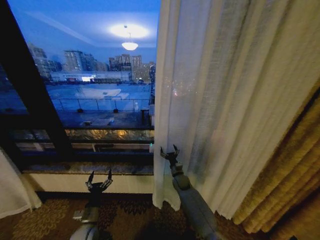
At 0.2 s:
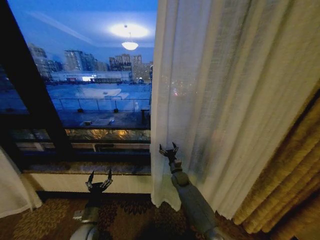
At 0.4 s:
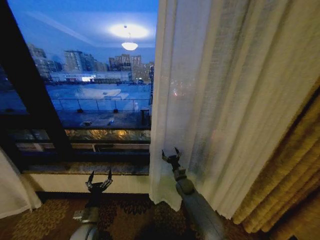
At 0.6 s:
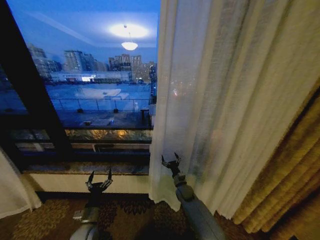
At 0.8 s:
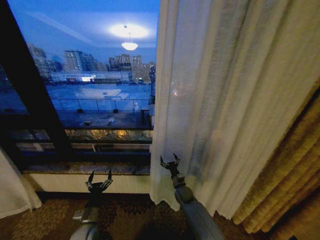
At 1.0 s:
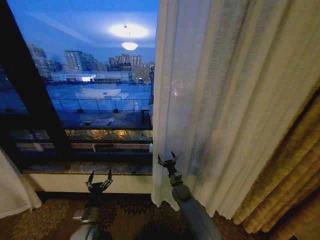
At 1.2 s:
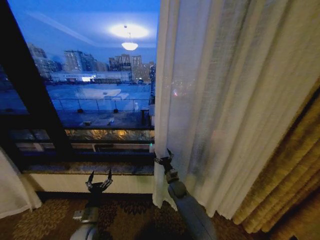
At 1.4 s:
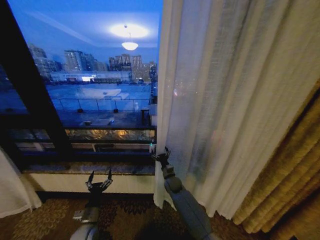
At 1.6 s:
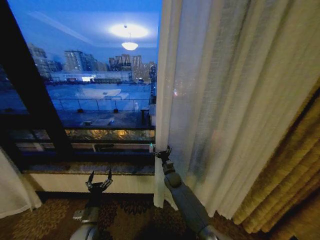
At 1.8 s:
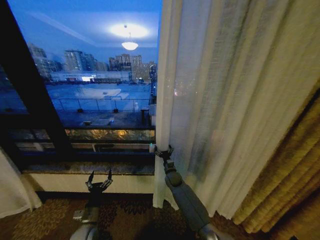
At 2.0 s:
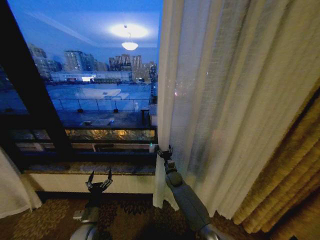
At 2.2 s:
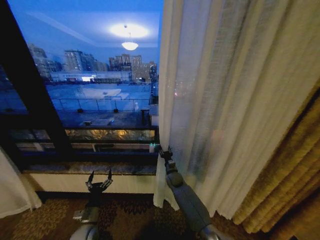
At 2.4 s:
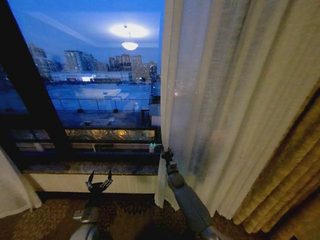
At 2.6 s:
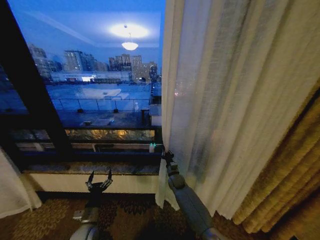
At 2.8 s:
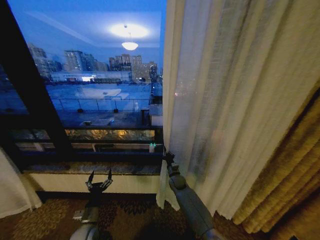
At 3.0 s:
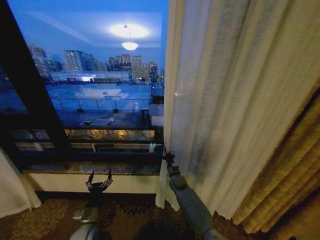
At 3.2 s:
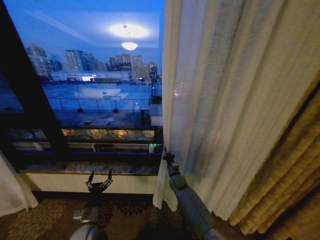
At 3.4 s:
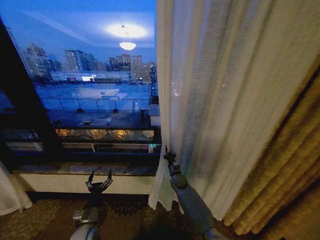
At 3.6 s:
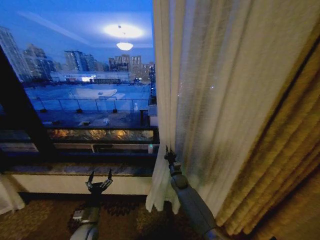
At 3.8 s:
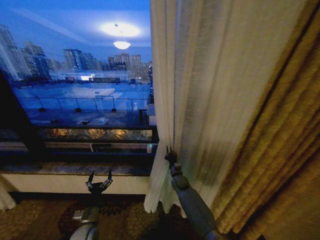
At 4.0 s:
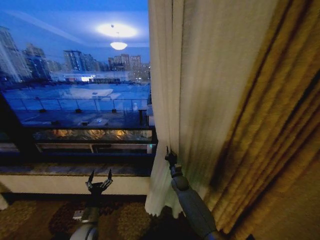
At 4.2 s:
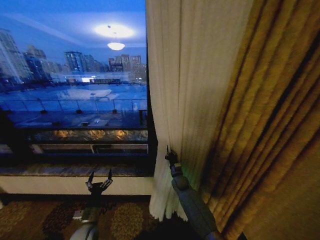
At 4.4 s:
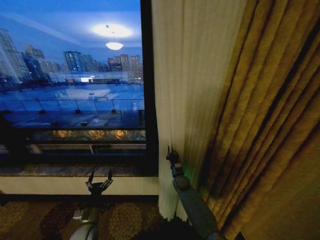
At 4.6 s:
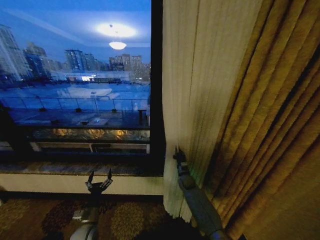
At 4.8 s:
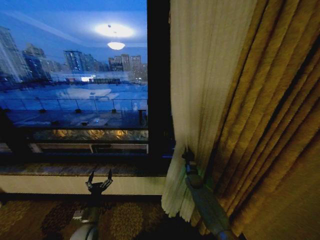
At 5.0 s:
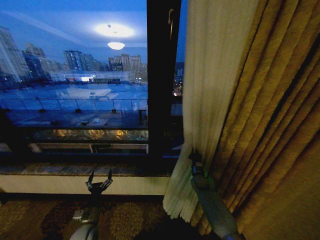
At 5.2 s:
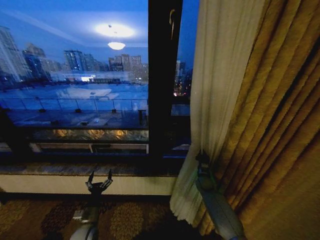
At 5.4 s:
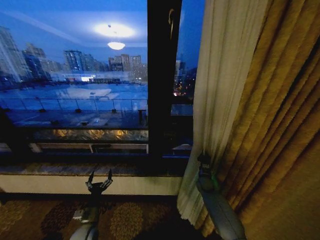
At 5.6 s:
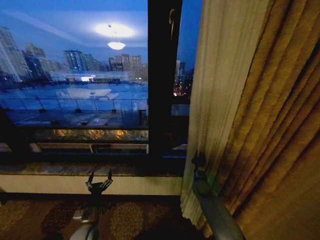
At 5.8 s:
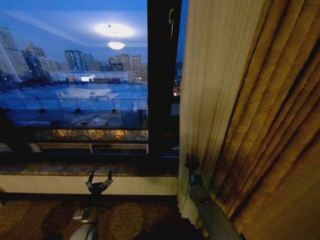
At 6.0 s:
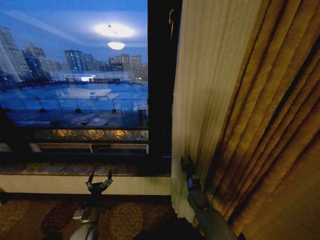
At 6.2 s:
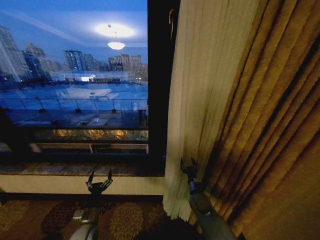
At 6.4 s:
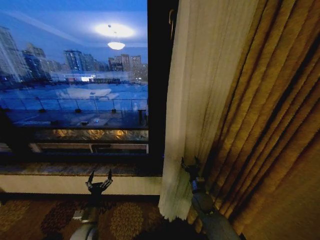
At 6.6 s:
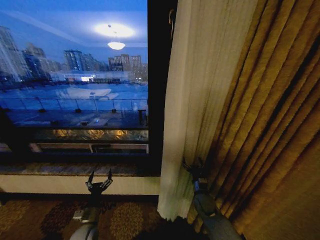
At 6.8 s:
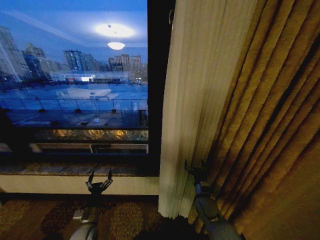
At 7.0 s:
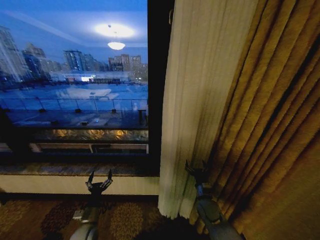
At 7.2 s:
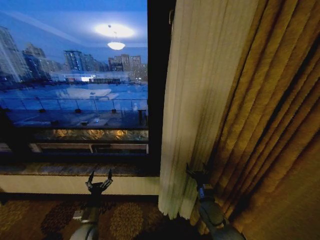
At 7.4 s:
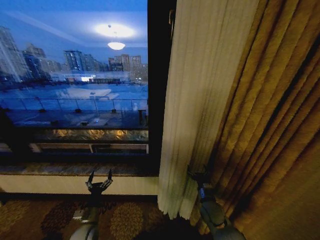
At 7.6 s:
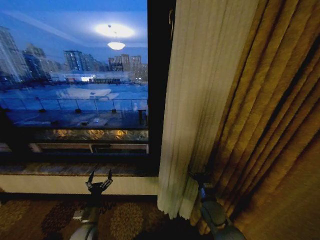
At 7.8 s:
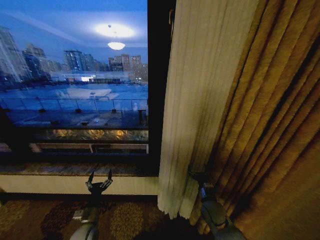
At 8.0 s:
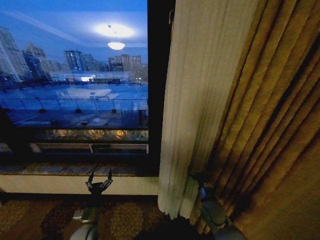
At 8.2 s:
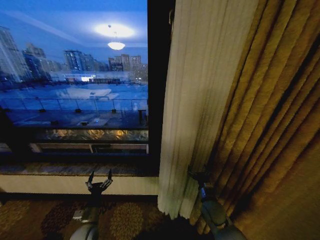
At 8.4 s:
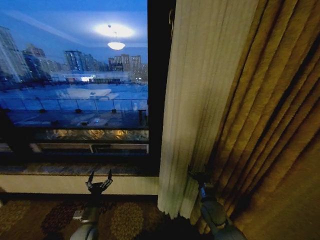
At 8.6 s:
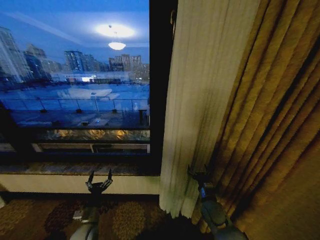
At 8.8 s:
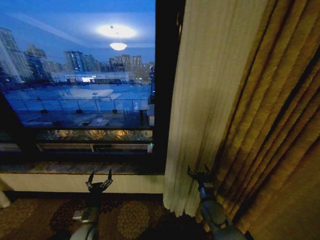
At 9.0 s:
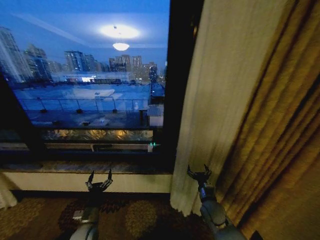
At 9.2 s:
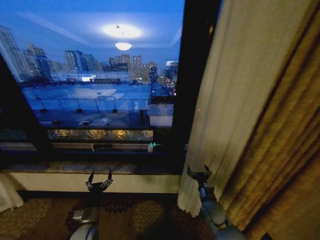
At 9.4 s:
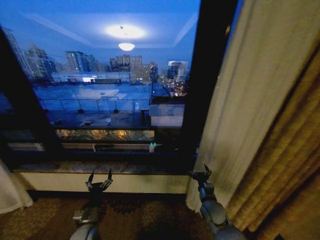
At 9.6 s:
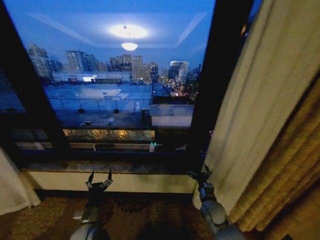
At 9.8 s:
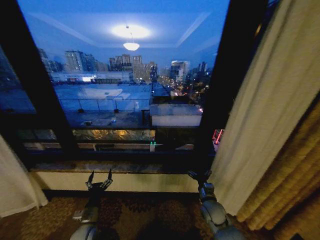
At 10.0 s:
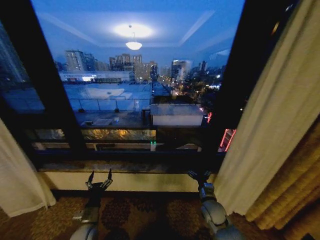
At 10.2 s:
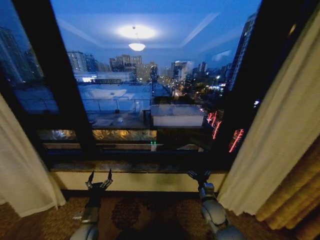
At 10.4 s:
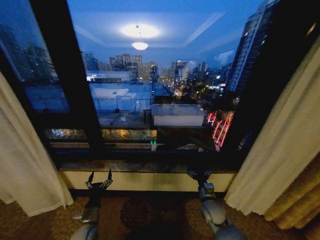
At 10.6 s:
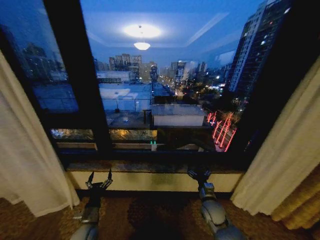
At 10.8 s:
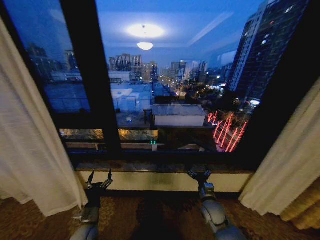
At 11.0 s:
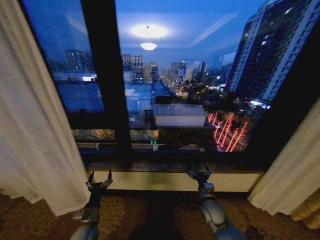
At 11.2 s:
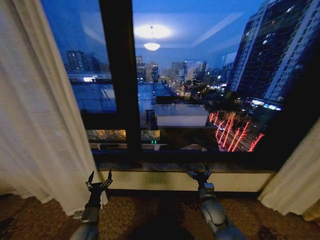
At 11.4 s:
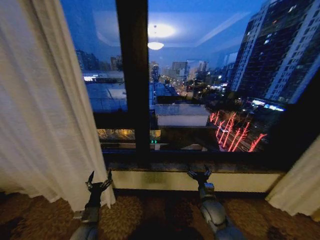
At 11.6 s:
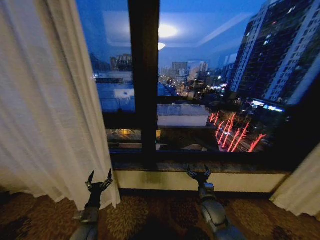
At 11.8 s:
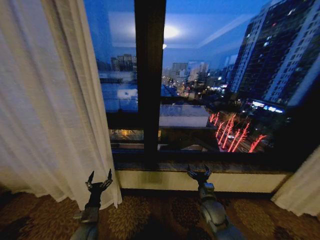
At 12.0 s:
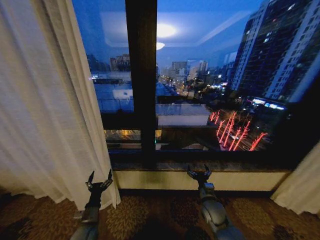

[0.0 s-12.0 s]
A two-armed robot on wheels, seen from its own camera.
Task of the whole recording: Open the curtains by pulling them apart, changing their state from closed to fully open.
0.0 to 1.6 s: The right gripper changes place by some 5 cm.
1.6 to 3.0 s: The right gripper closes.
4.4 to 6.0 s: The right gripper travels backward and to the right by some 10 cm, and opens.
6.0 to 7.6 s: The right gripper heads backward, covering about 5 cm, and opens up.

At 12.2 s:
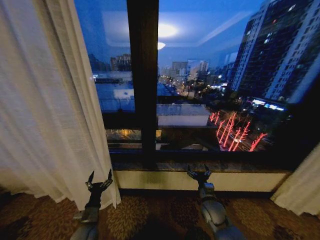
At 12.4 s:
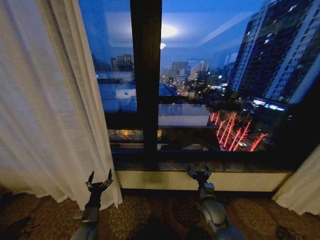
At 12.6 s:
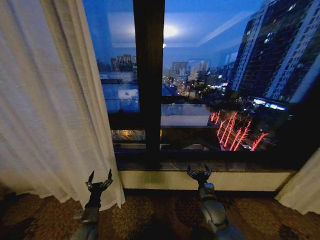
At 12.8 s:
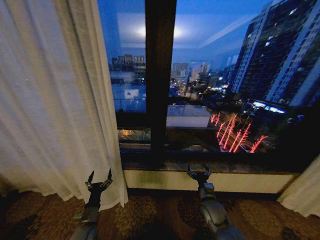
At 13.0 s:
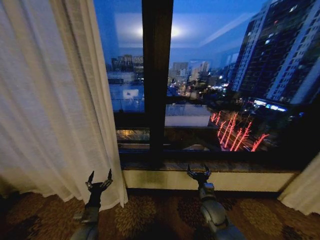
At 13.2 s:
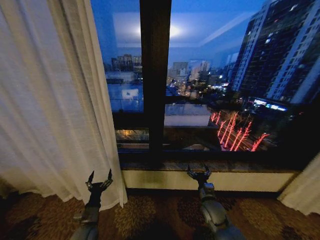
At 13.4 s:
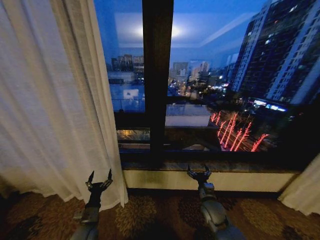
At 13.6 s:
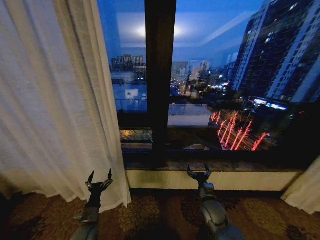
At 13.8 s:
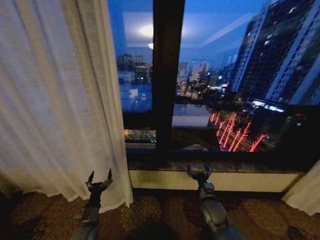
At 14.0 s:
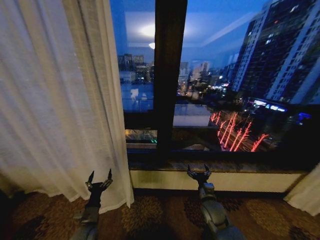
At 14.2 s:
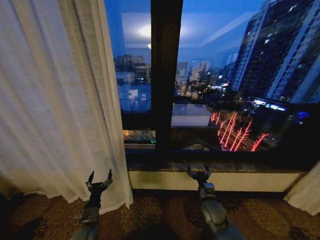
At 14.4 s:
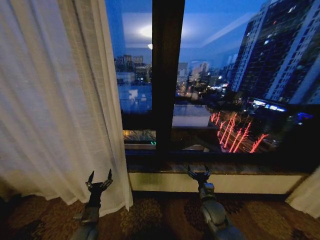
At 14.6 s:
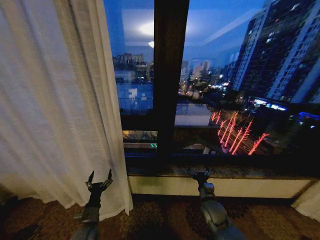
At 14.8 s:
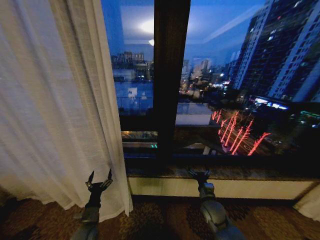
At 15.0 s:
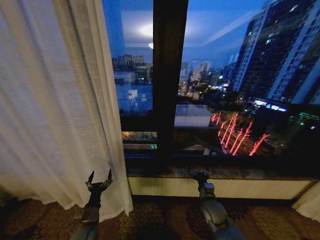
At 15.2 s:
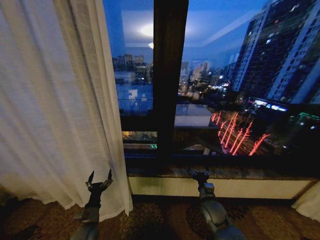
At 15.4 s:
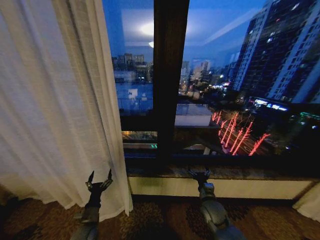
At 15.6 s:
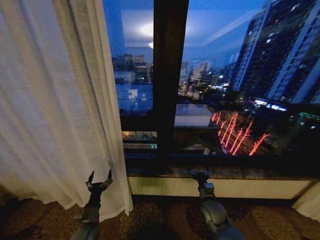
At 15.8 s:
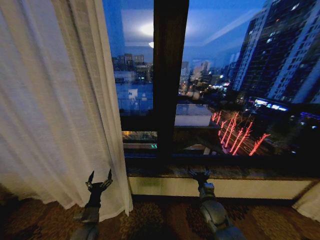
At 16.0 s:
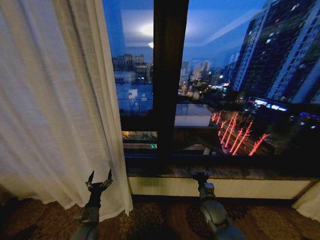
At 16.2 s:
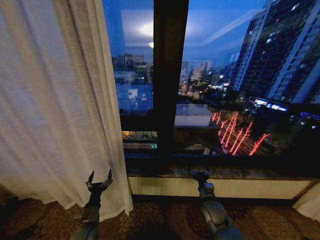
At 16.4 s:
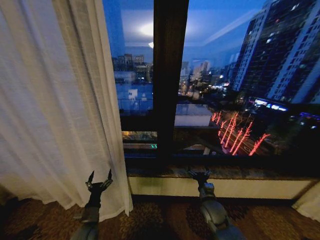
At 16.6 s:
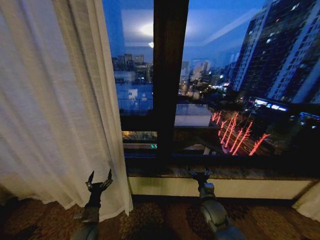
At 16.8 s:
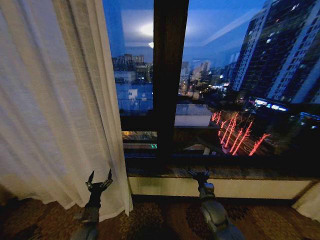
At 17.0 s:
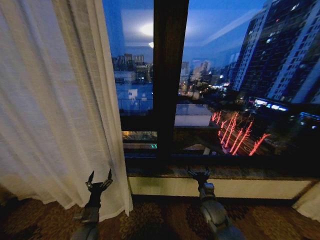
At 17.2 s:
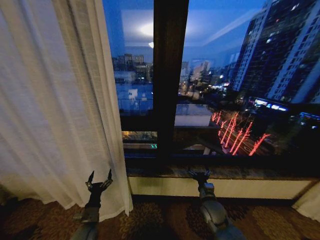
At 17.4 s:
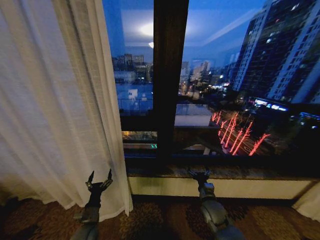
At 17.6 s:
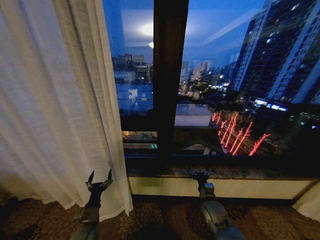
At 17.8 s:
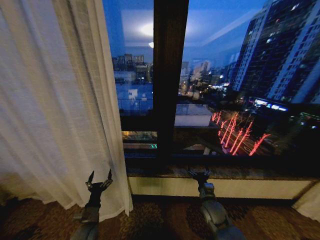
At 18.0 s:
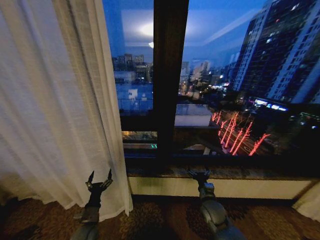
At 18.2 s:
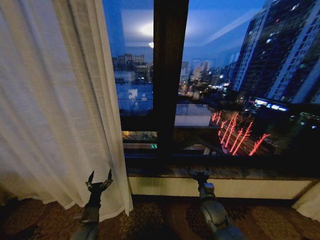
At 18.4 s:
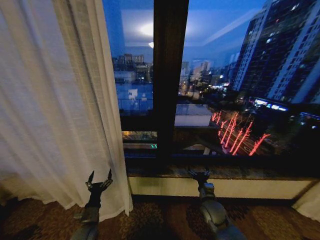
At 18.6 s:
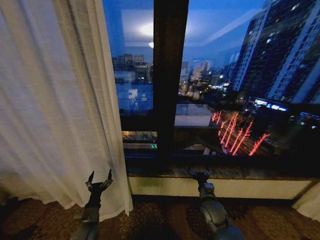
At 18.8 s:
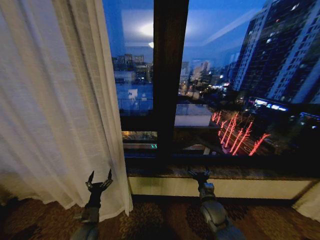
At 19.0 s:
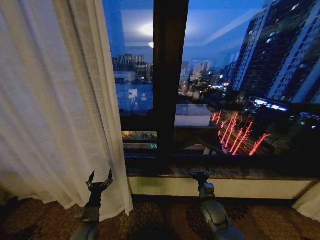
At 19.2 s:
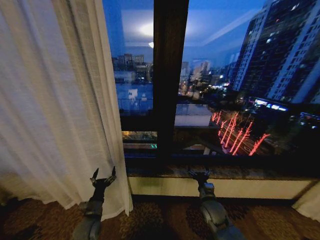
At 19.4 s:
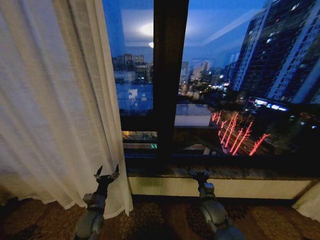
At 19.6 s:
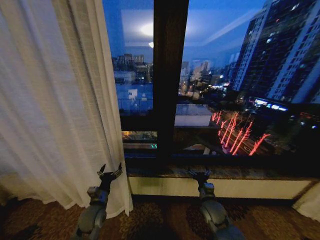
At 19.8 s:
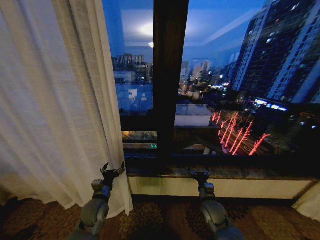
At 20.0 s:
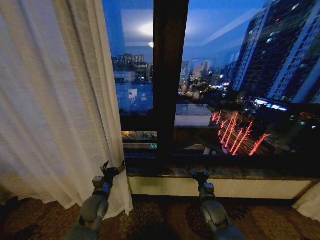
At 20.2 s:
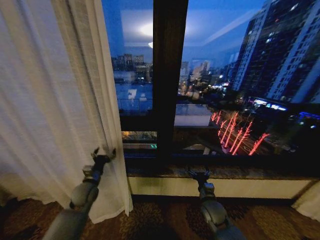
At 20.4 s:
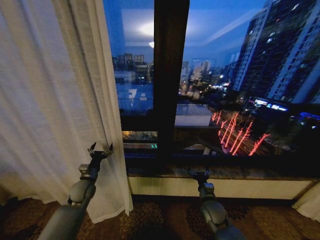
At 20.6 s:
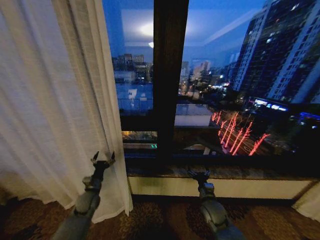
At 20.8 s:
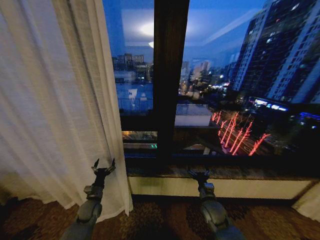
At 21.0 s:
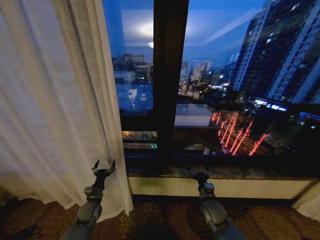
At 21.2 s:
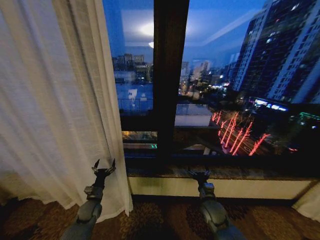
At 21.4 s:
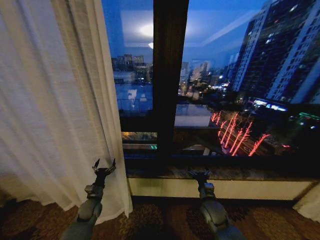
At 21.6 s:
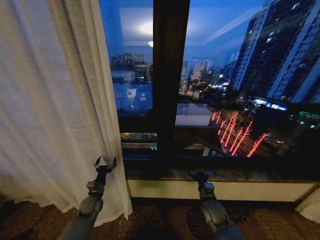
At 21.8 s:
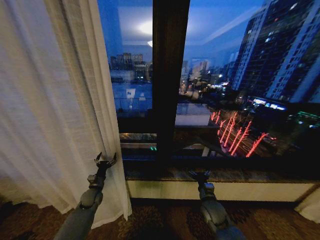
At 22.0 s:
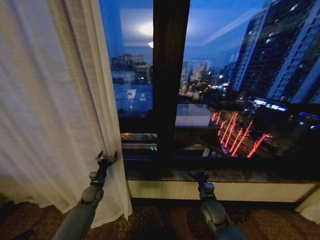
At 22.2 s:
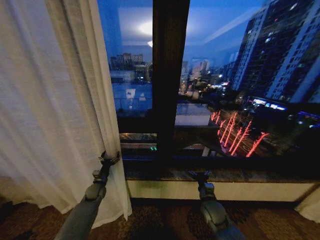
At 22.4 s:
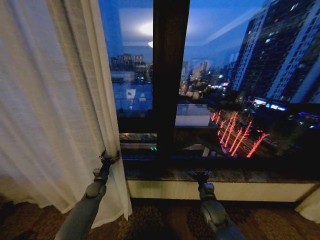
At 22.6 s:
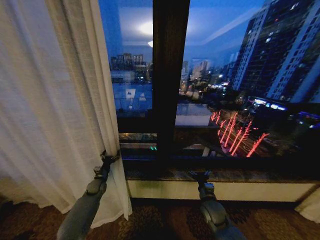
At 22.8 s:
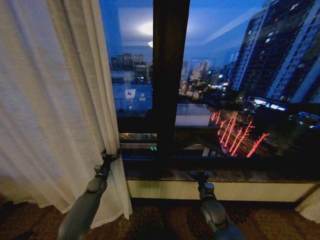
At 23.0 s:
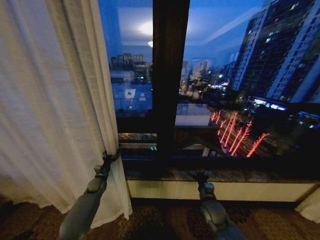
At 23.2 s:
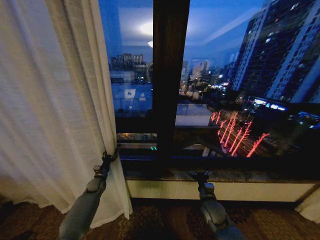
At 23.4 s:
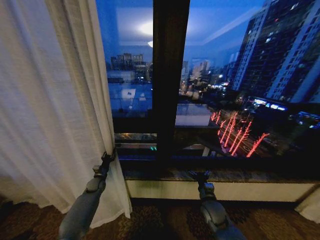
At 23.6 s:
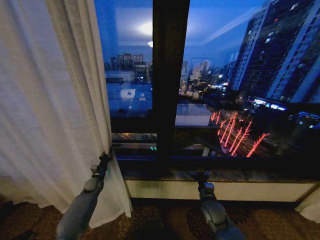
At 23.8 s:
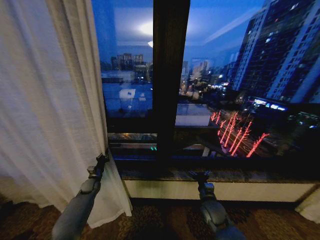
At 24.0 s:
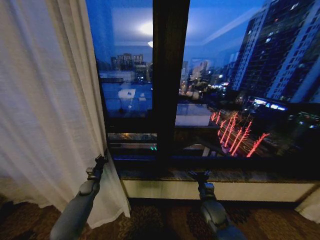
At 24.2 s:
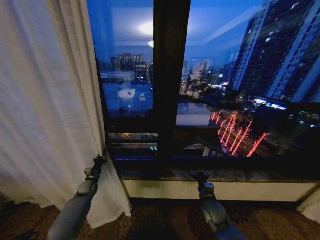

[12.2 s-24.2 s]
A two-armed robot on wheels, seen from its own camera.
Task of the whole recording: Open the curtains by pulling them apart, changing their state from closed to fully open.
13.8 to 18.2 s: Both grippers stay about where they are.
18.2 to 19.8 s: The left gripper shifts about 10 cm upward and forward.
19.8 to 21.2 s: The left gripper goes some 10 cm downward and to the left.
21.2 to 22.6 s: The left gripper moves forward, approximately 10 cm.
22.6 to 24.2 s: The left gripper shifts approximately 5 cm to the left, and closes its fingers.
